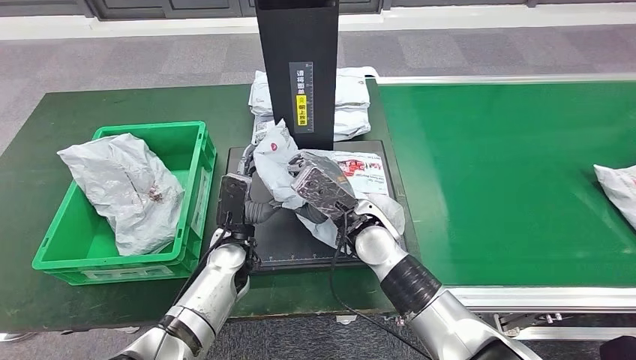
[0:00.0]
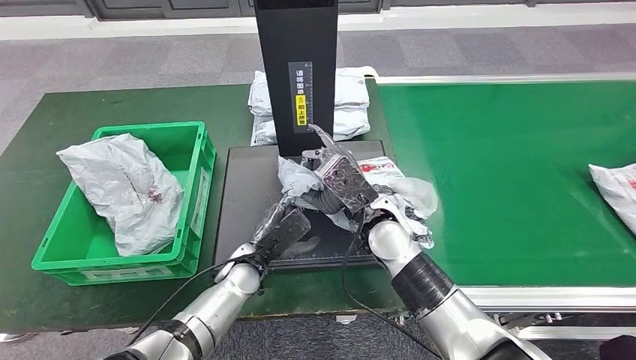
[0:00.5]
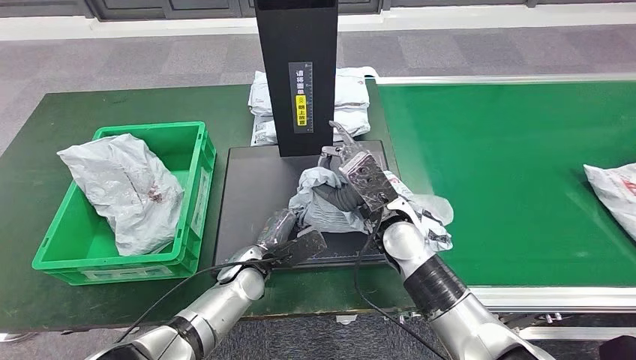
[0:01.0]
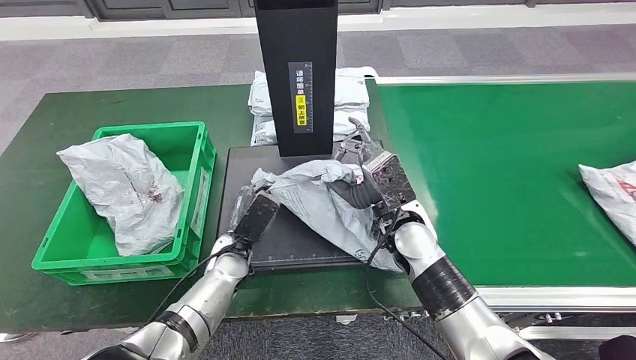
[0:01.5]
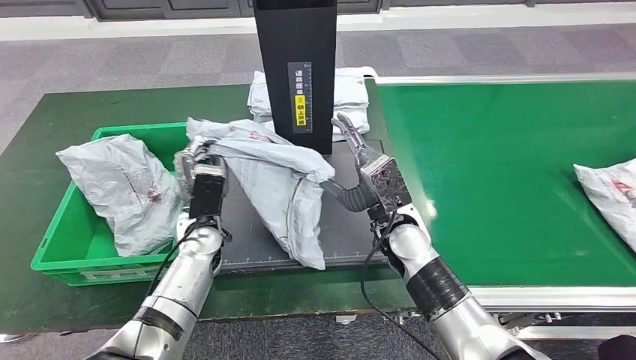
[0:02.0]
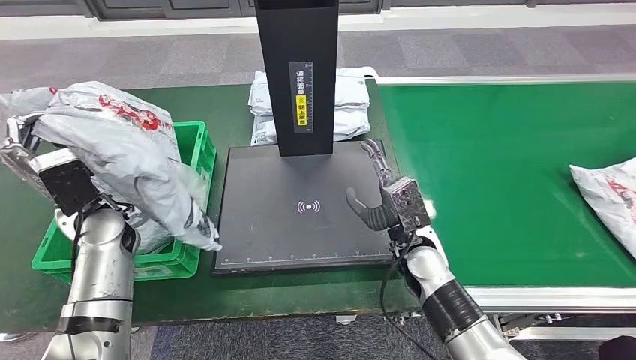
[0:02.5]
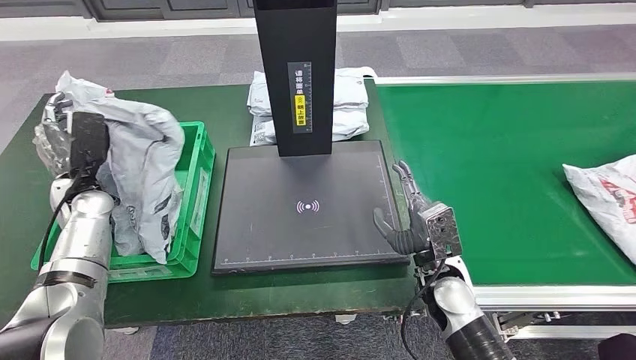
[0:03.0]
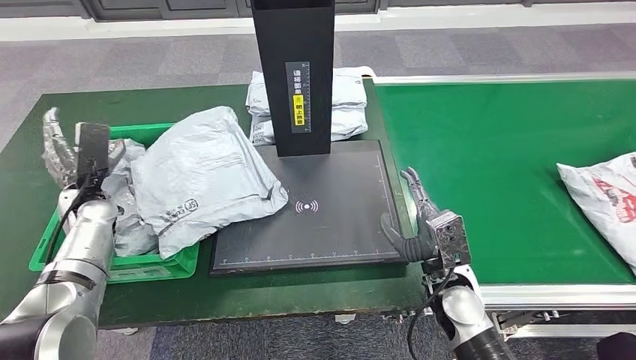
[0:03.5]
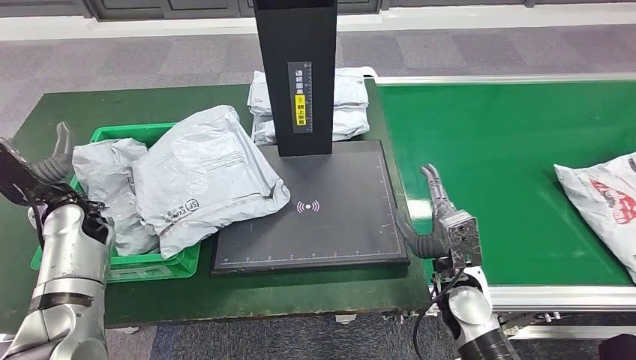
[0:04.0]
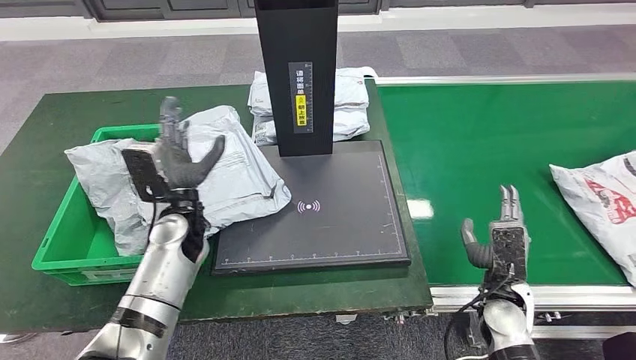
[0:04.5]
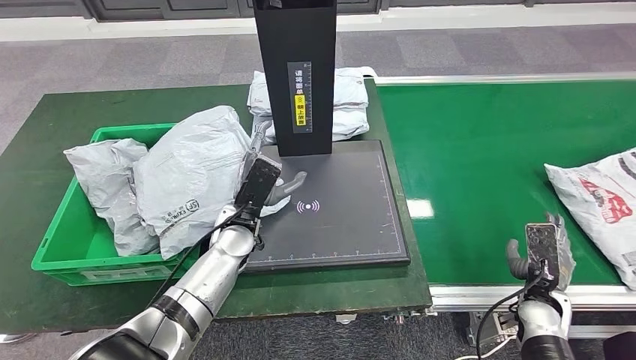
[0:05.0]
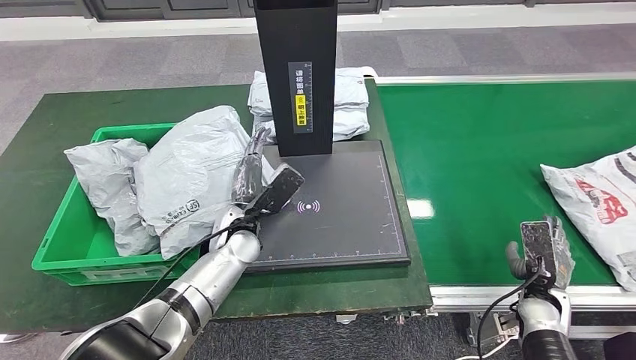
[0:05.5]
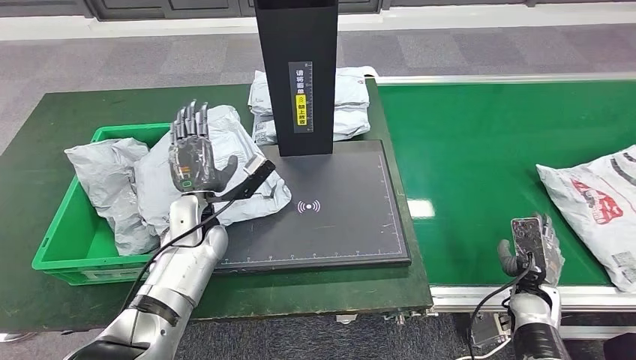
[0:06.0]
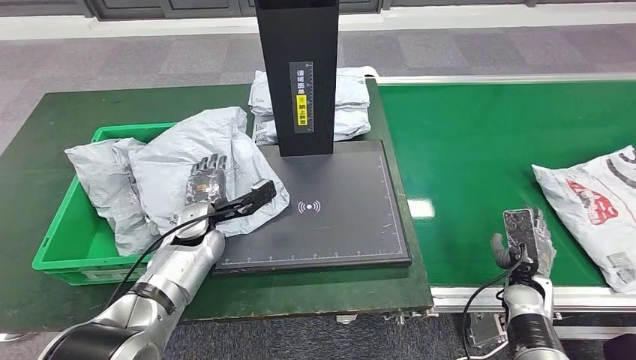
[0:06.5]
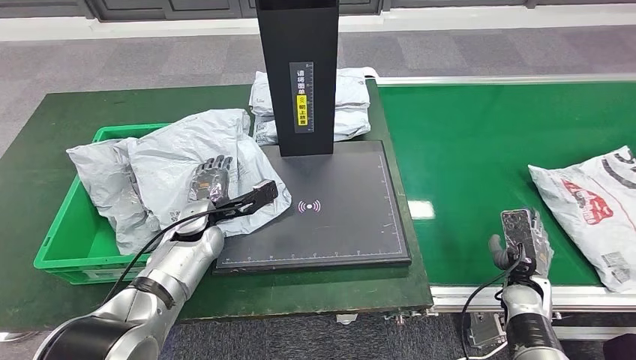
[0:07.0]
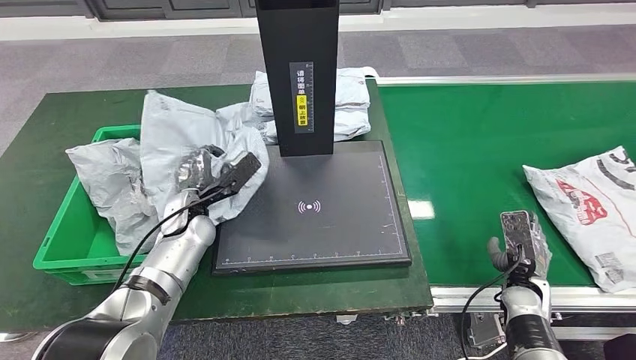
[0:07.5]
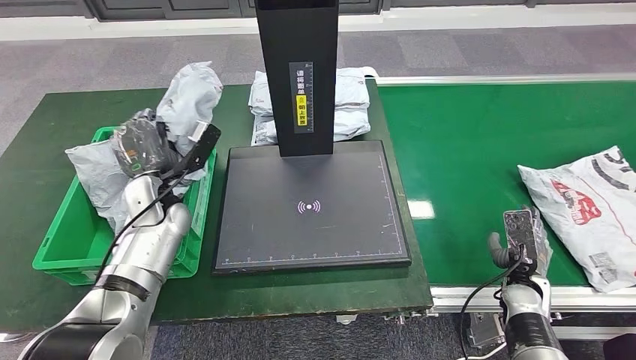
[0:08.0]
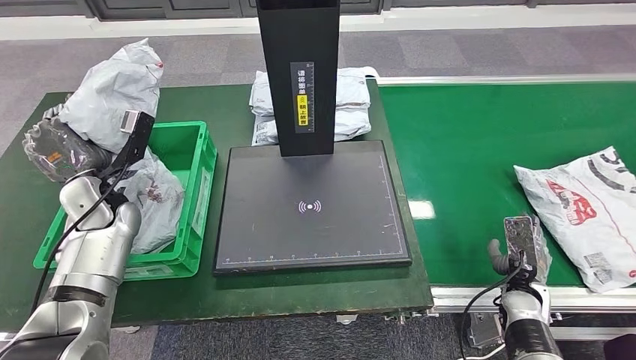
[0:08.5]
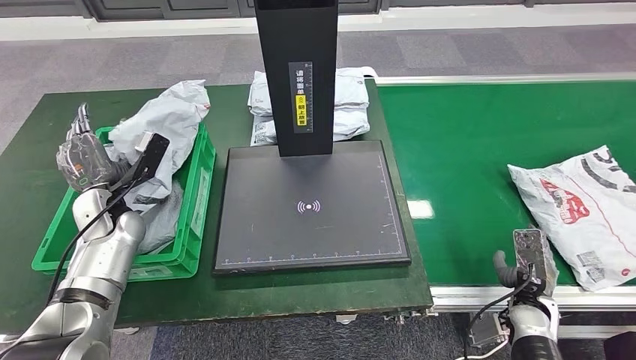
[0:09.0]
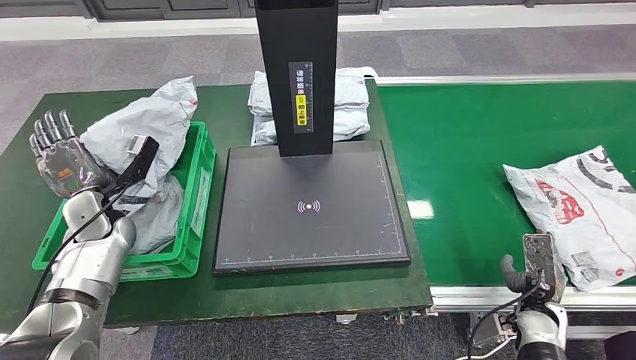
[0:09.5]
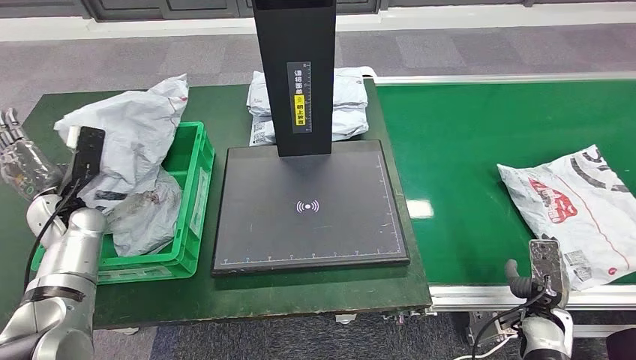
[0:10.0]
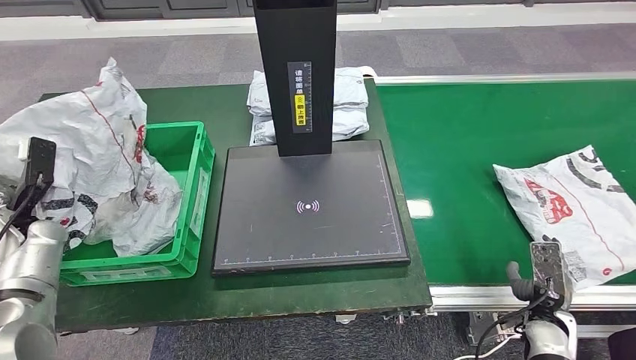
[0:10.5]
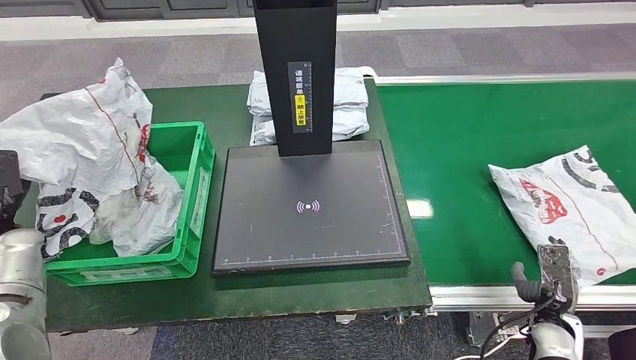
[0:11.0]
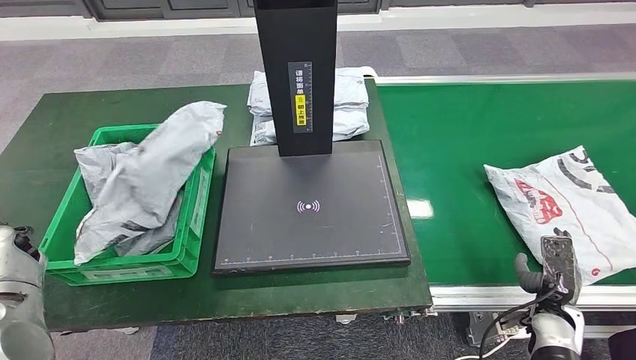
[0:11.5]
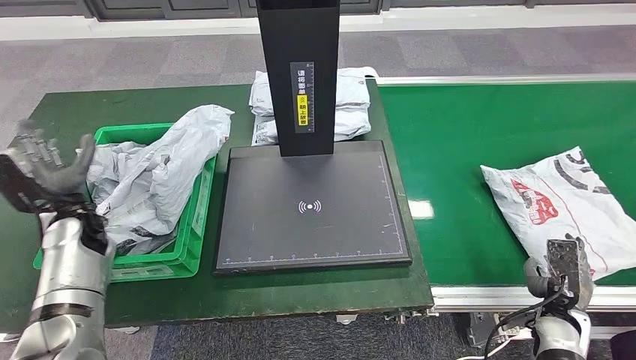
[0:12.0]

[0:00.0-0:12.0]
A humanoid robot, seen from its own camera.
Step, 0:00.0 to 0:01.0: Place the parcel onto the inbound machine.
Step, 0:01.5 to 0:02.5: Pick up the parcel from the inbound machine.
Step, 0:03.0 to 0:05.0: Place the parcel into the delivery box.

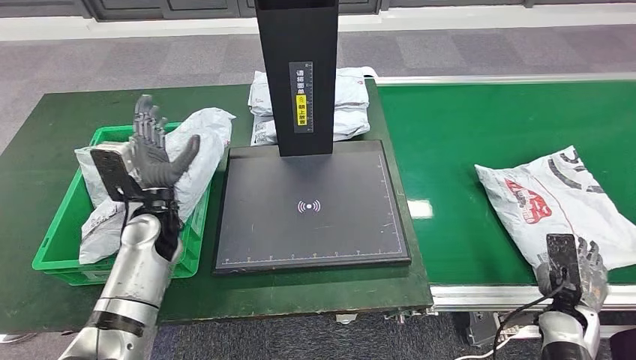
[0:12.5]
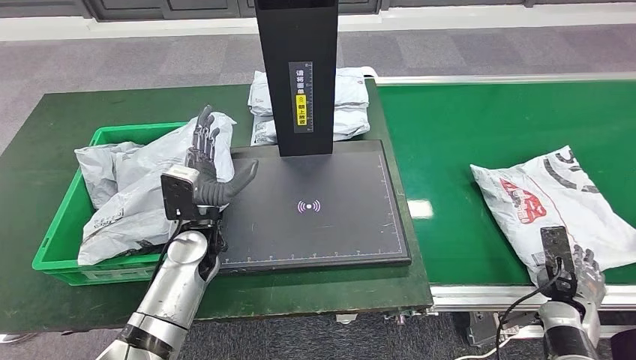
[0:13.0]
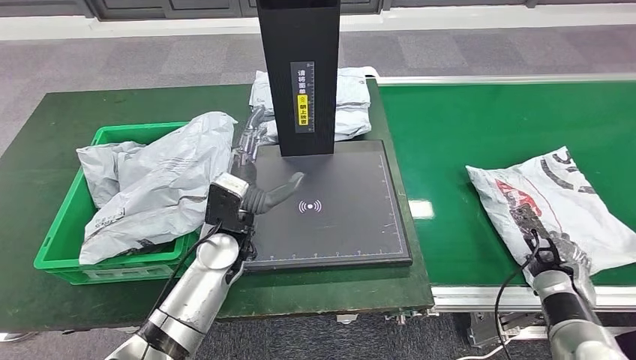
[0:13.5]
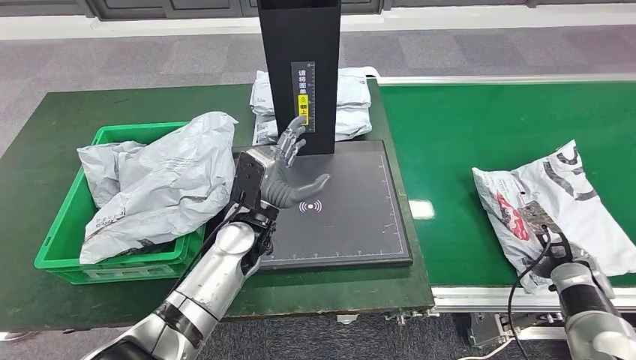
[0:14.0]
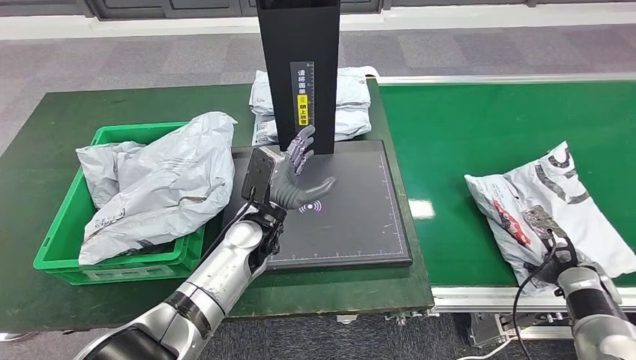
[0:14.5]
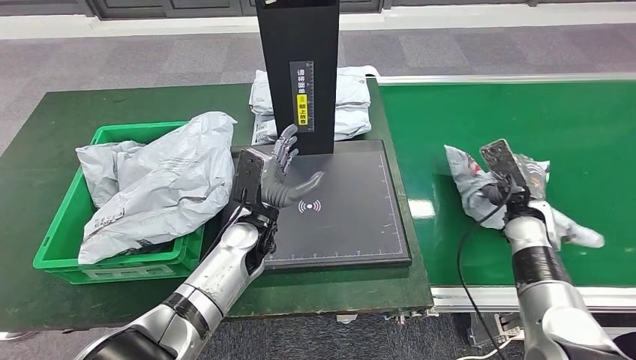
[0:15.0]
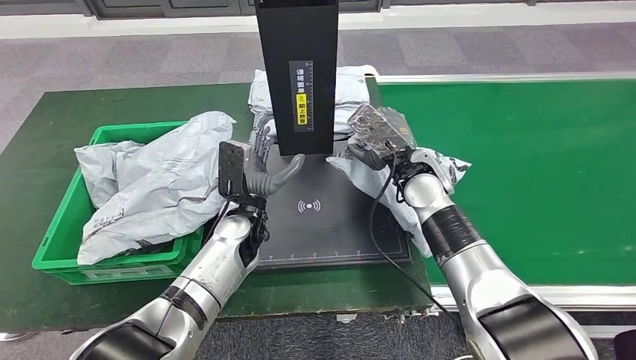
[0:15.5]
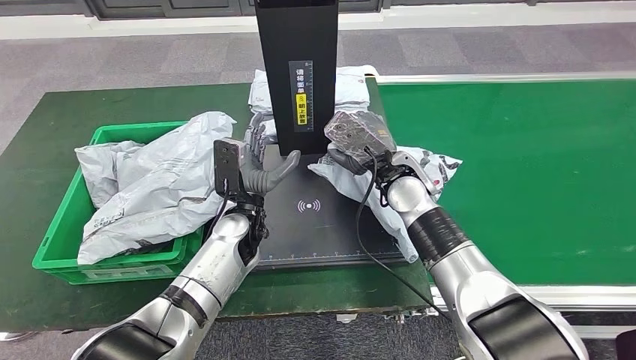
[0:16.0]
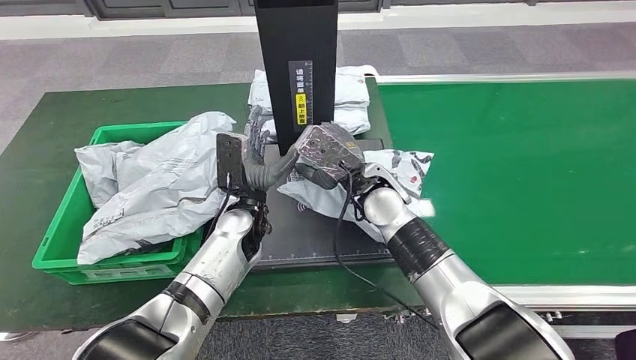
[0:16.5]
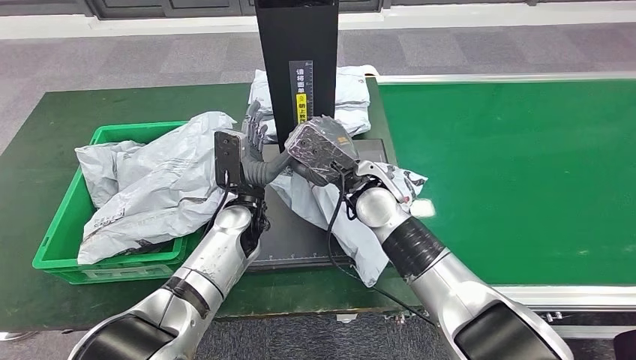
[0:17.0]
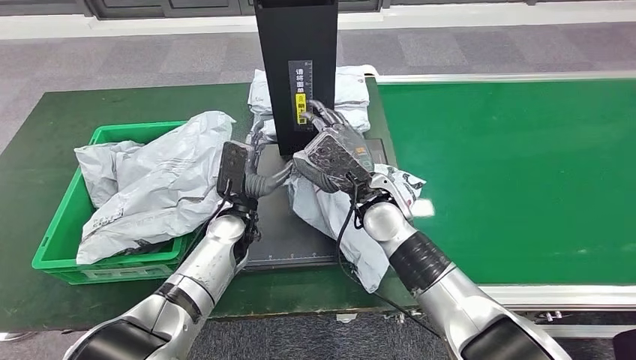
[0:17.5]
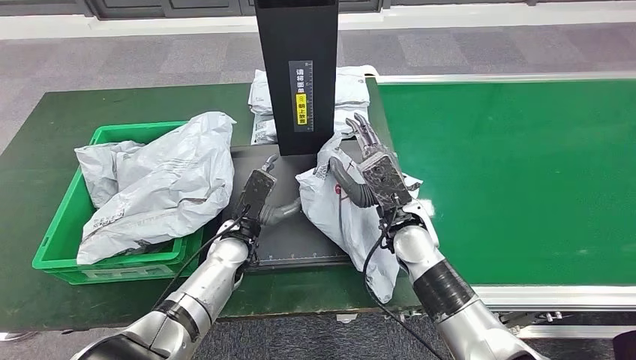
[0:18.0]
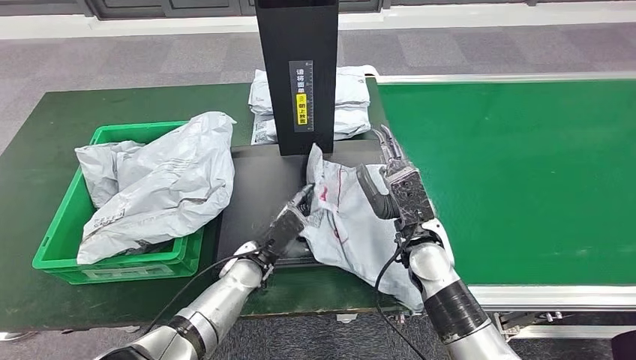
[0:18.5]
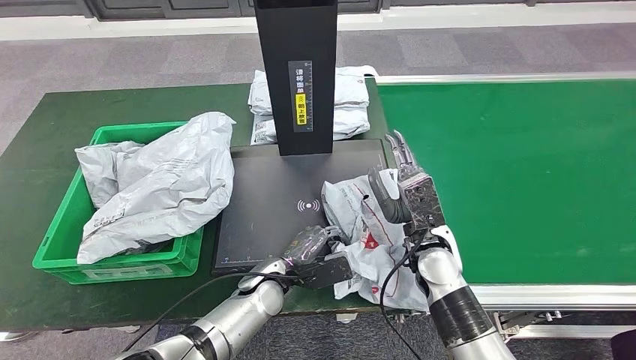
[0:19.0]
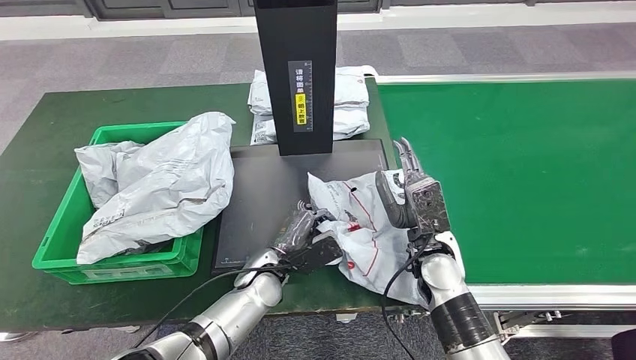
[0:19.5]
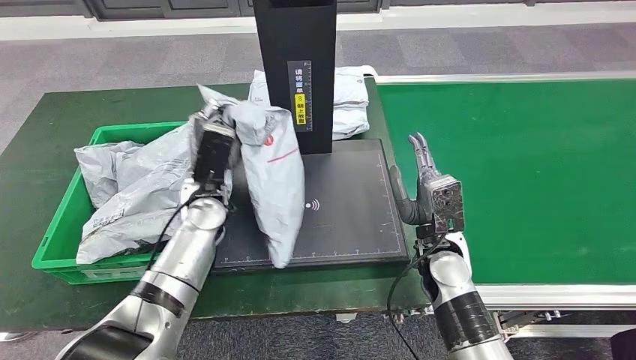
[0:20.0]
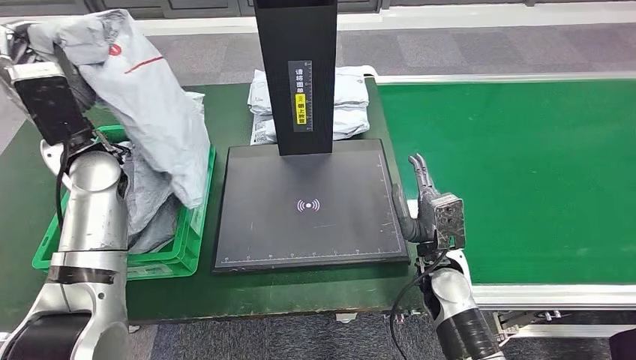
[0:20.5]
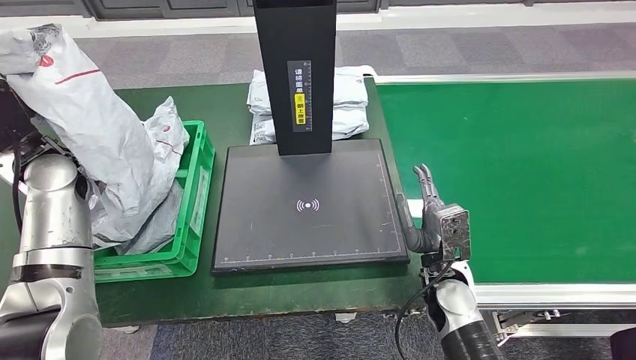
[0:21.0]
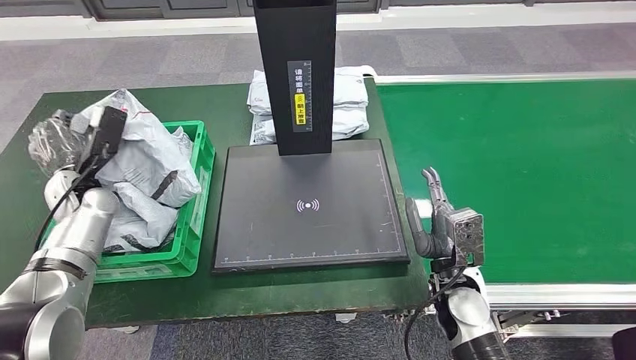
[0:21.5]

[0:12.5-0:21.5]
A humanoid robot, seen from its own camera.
Step, 0:12.5 to 0:15.5: Pick up the parcel from the conveyor belt.
Step, 0:16.0 to 0:18.5: Place the parcel onto the inbound machine.
Step, 0:19.0 to 0:20.5: Pick up the parcel from the inbound machine.
